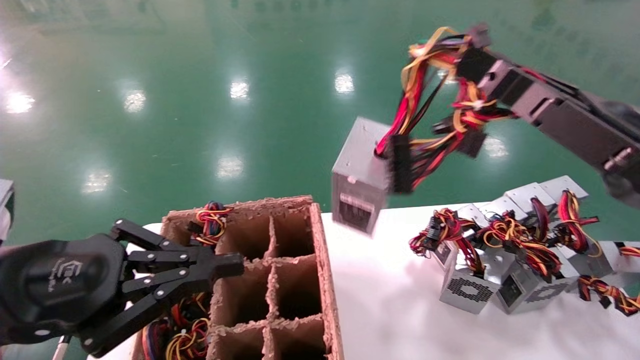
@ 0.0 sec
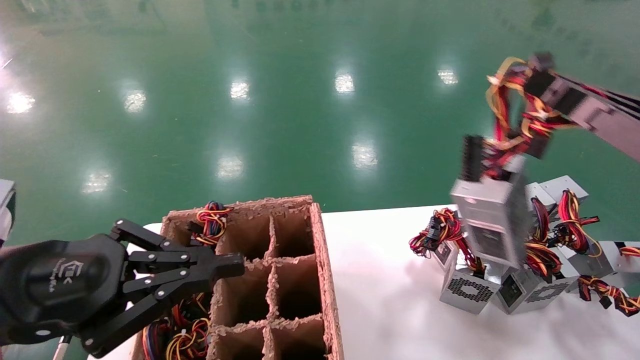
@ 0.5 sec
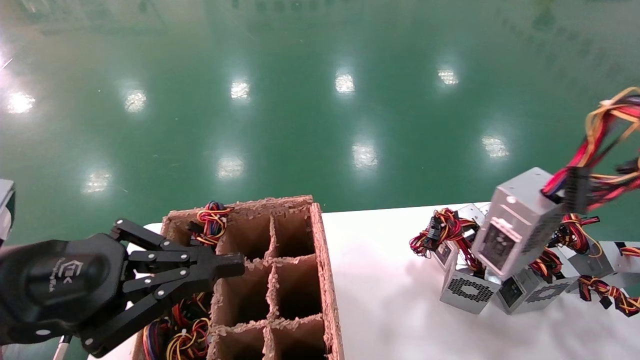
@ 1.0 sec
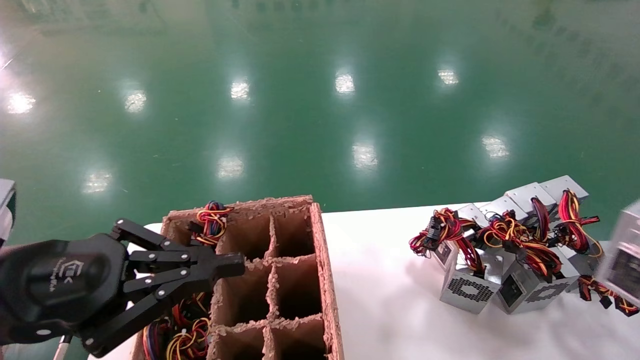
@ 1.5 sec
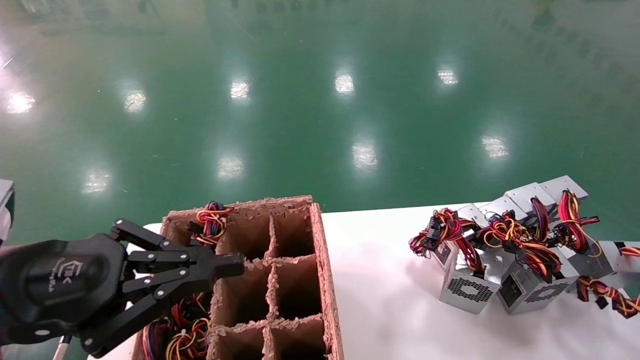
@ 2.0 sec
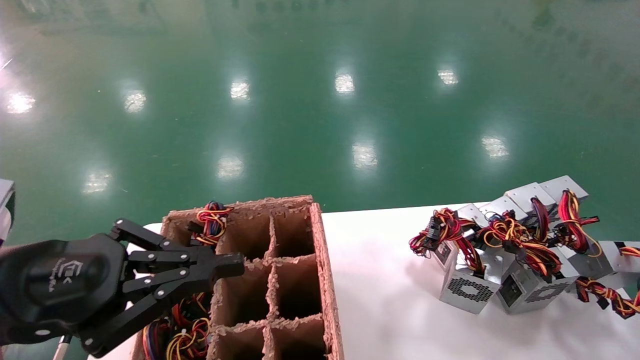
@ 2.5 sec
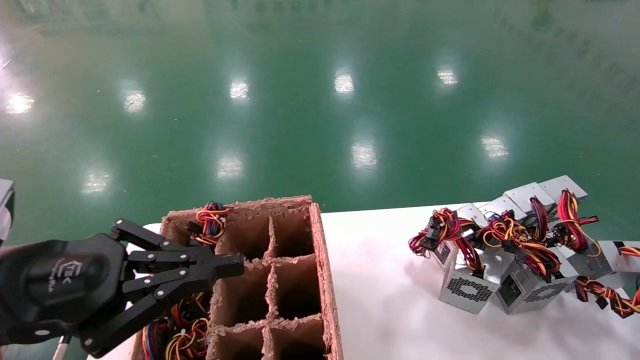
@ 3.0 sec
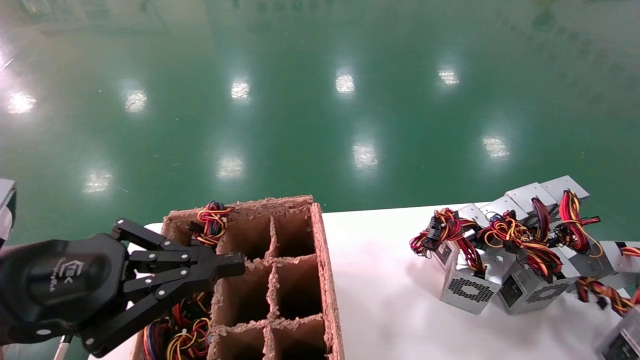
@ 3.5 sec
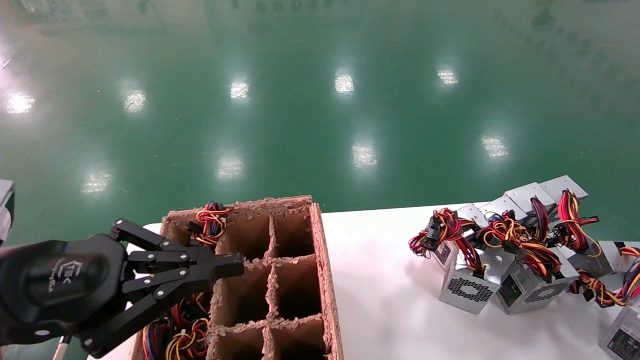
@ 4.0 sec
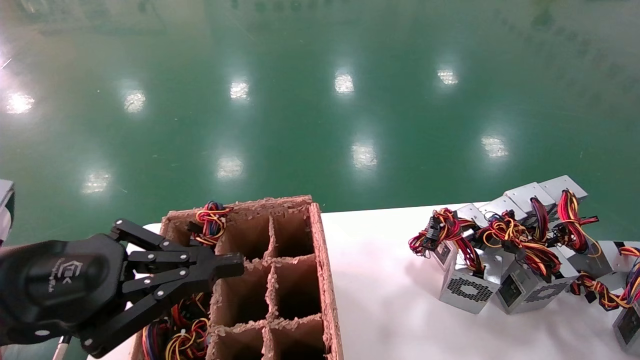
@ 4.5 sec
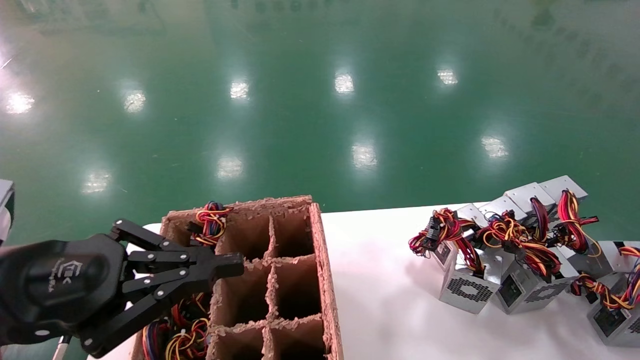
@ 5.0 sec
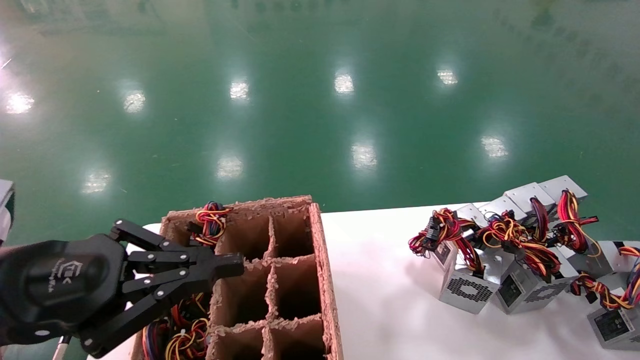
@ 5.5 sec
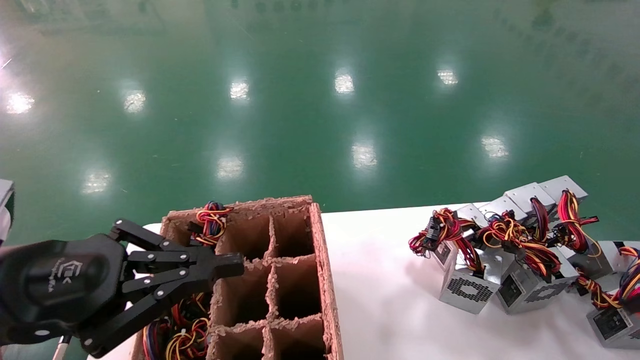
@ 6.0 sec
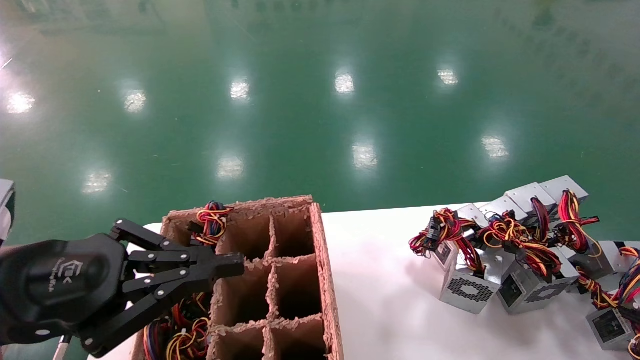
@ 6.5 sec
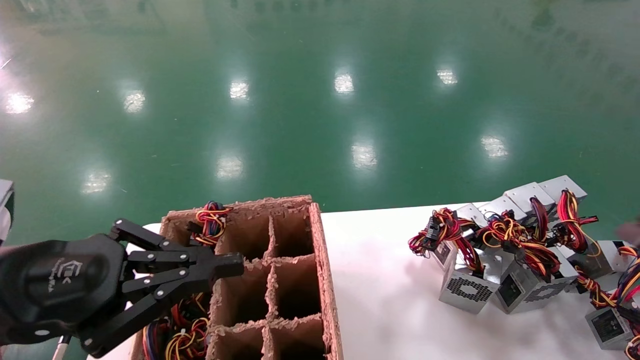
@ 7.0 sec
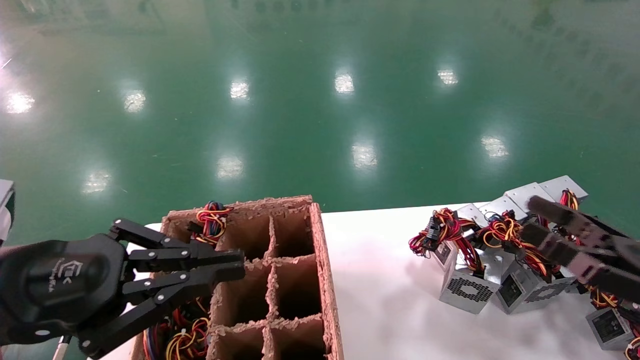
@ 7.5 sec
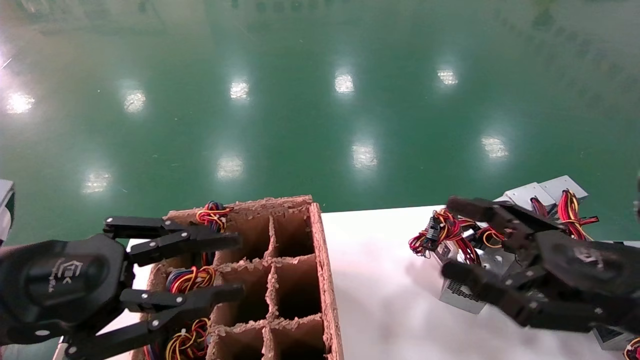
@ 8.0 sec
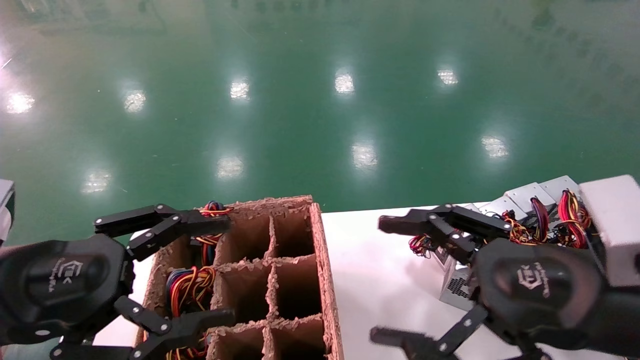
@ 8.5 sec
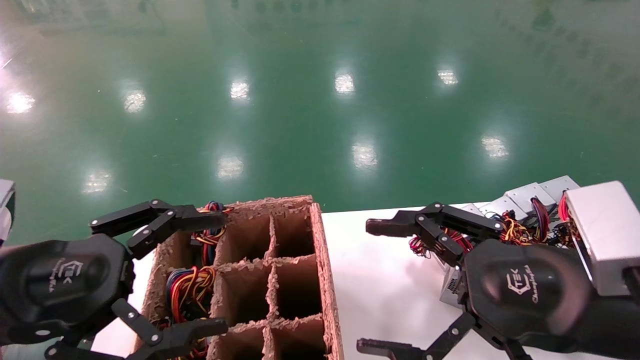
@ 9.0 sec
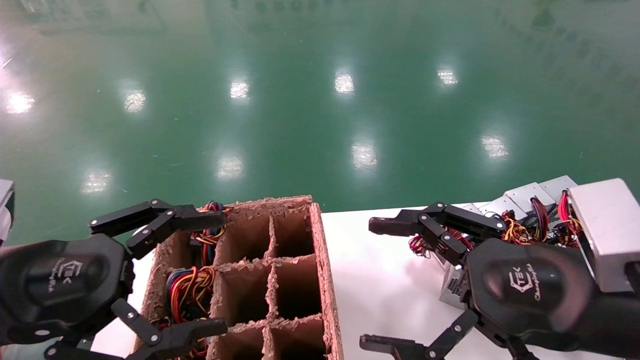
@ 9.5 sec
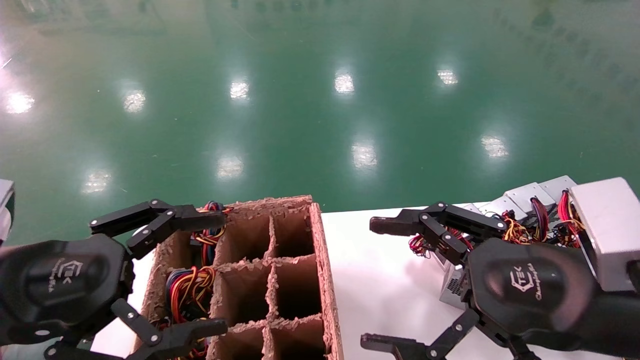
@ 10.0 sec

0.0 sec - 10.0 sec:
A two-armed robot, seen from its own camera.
Step, 0.0 sec - 5.5 sec: Place the main unit power supply in the designated area.
0.0 sec - 2.0 sec: The right gripper travels to the right and backward by about 35 cm.
2.0 sec - 4.0 sec: The right gripper moves downward and forward, roughly 15 cm.
4.0 sec - 6.0 sec: The grippers stay close to where they were, moving slightly.
6.0 sec - 8.0 sec: The right gripper goes about 30 cm to the left, and opens.
8.0 sec - 10.0 sec: The left gripper opens up. Meanwhile the right gripper goes some 5 cm to the left.

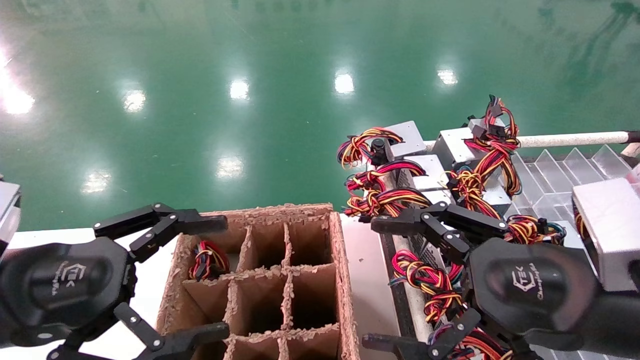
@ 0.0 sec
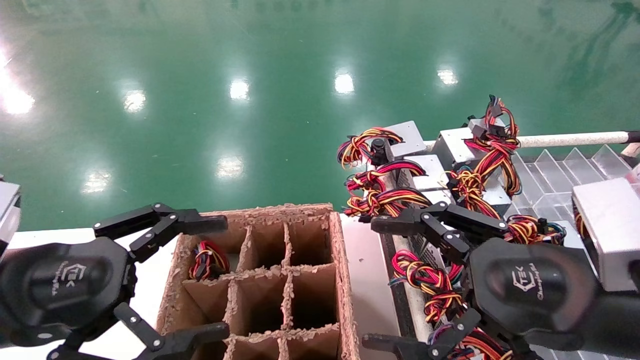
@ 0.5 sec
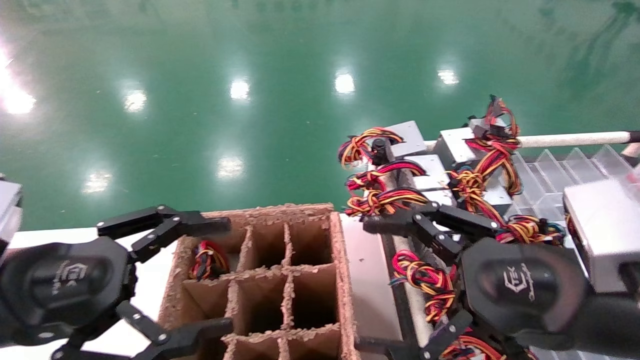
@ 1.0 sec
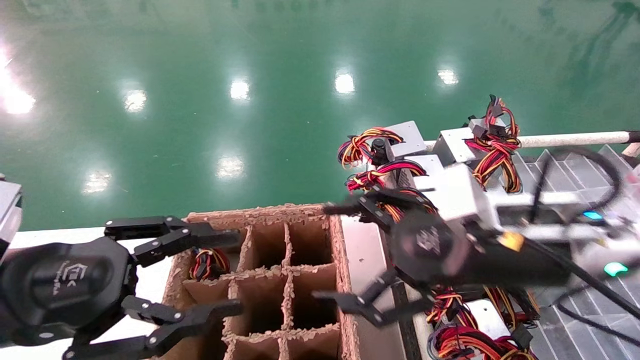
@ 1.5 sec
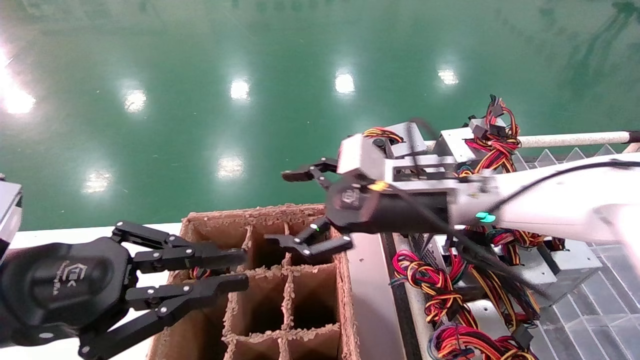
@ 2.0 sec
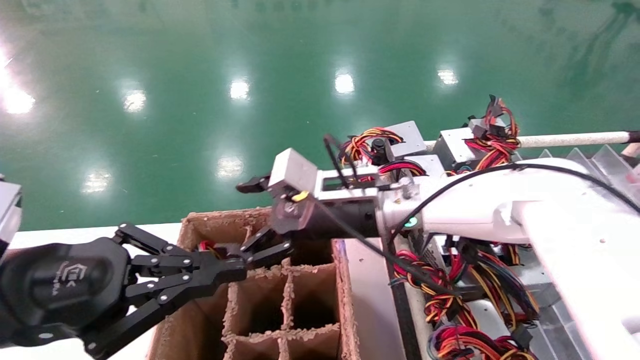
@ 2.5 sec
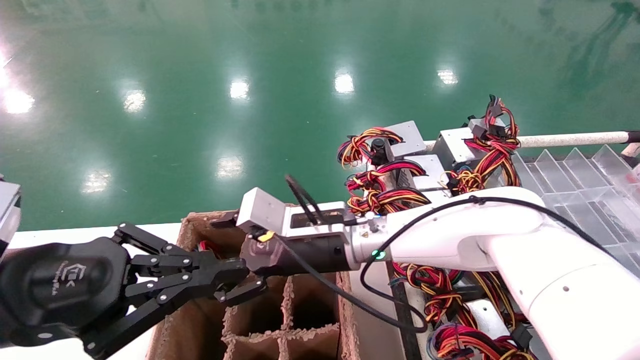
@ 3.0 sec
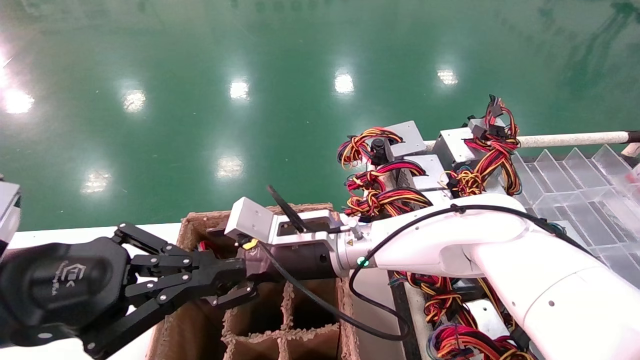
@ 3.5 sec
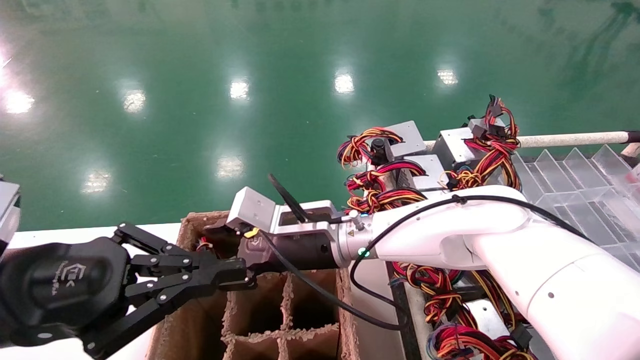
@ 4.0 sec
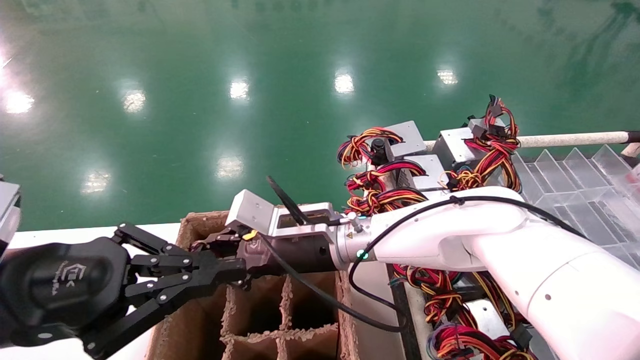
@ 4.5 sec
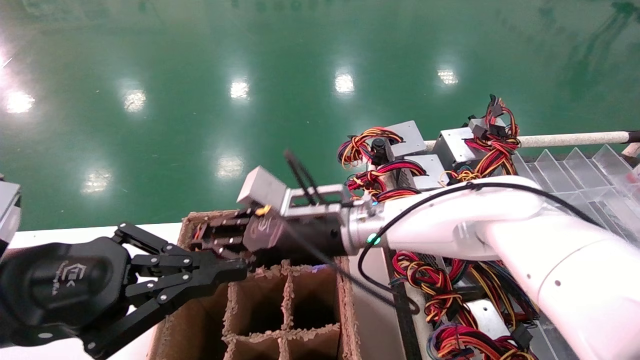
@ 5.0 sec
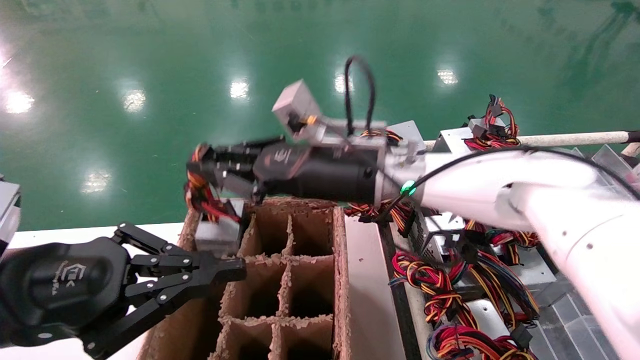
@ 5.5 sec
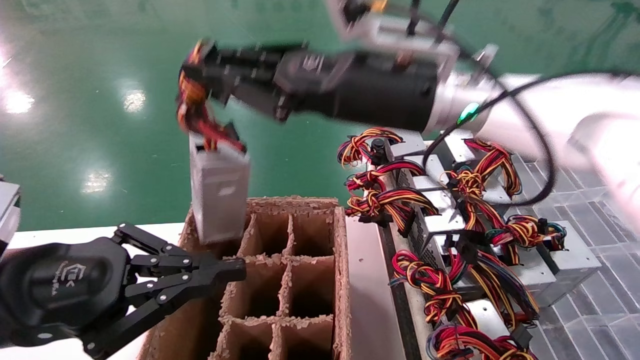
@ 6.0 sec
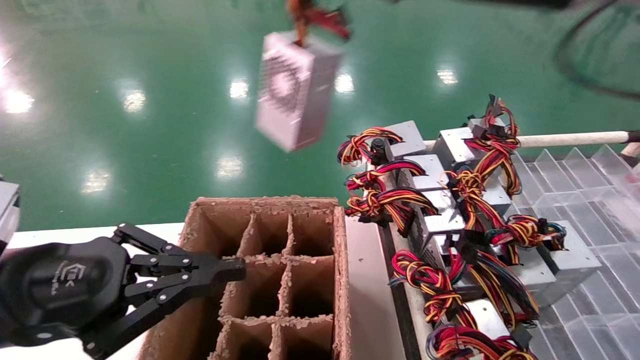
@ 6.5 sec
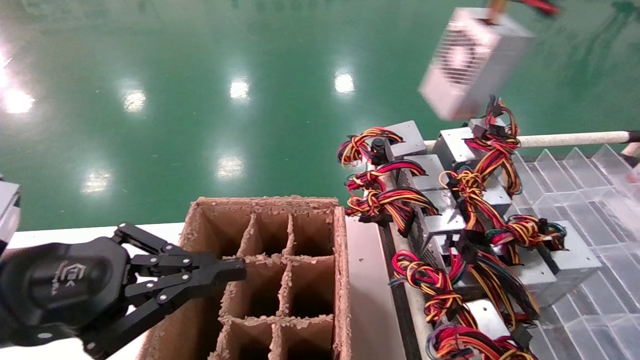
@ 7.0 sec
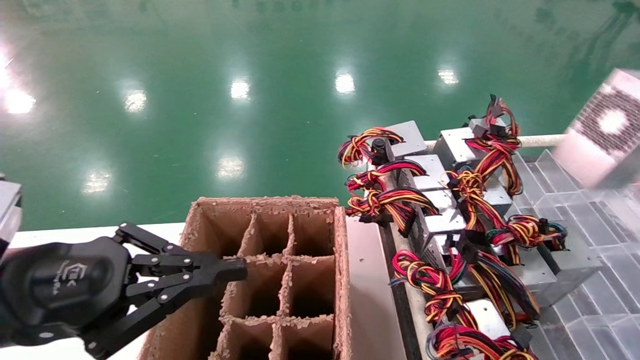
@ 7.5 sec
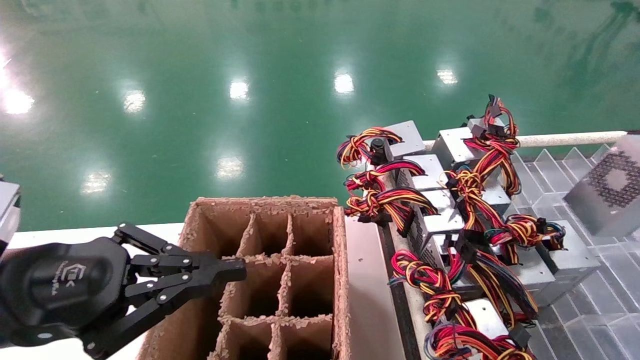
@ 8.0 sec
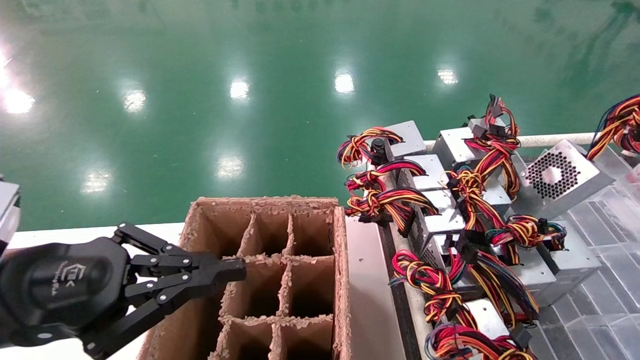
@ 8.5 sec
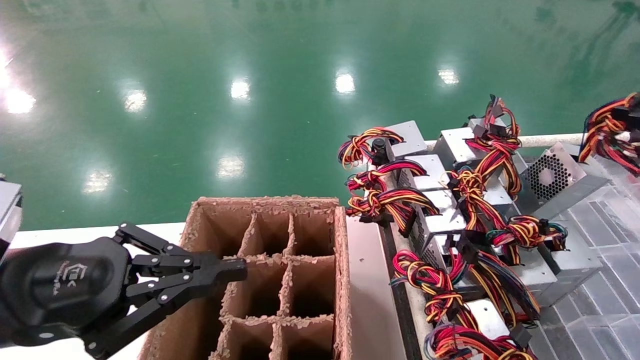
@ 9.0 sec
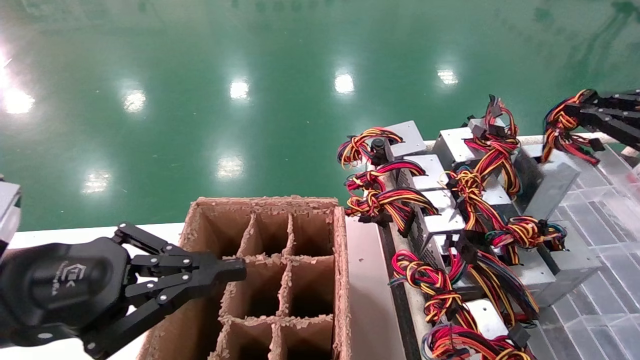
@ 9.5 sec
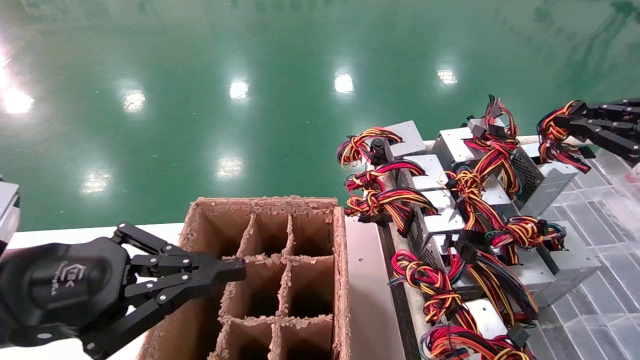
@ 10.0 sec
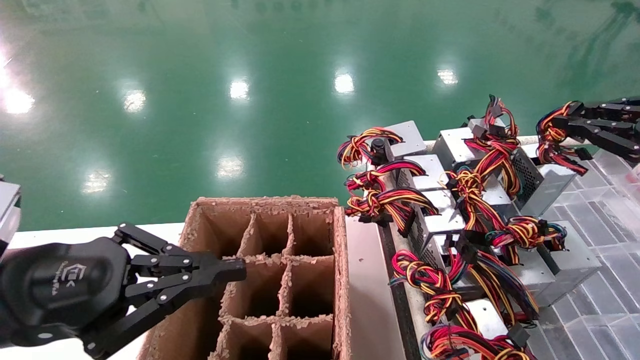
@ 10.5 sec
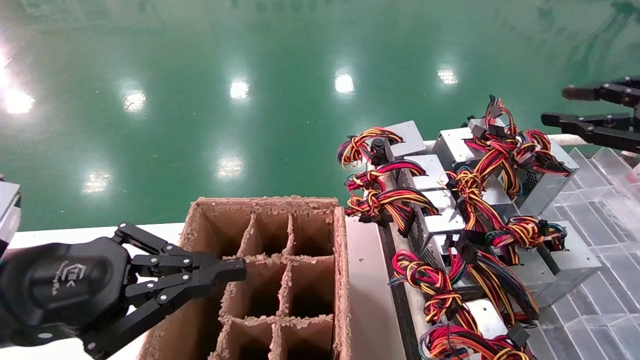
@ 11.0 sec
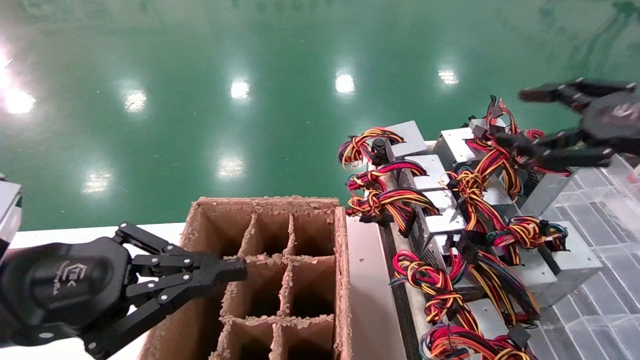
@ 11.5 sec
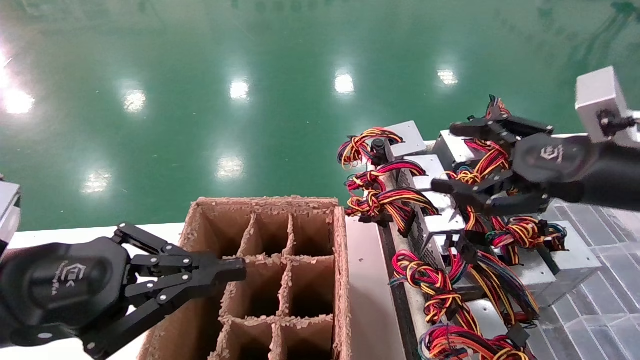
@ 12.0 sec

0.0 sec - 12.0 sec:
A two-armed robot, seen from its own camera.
Step, 1.5 sec - 4.5 sec: Grab the main unit power supply from the containment box.
Step, 5.0 sec - 10.5 sec: Place the main unit power supply in the designated area.
0.0 sec - 2.0 sec: The right gripper travels forward and to the left by approximately 20 cm, while the left gripper closes.
2.0 sec - 4.0 sec: The right gripper goes approximately 15 cm to the left and downward.
4.0 sec - 6.0 sec: The right gripper travels upward and to the right by roughly 25 cm, and closes up.
6.0 sec - 8.0 sec: The right gripper travels to the right by about 40 cm.
8.0 sec - 10.0 sec: The right gripper heads forward and to the left, covering roughly 15 cm.
10.0 sec - 12.0 sec: The right gripper heads to the left, covering approximately 15 cm, and opens.
